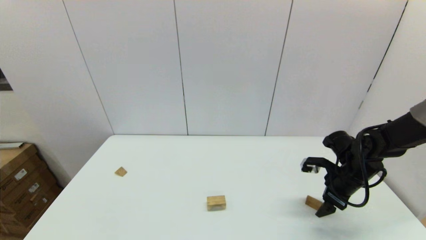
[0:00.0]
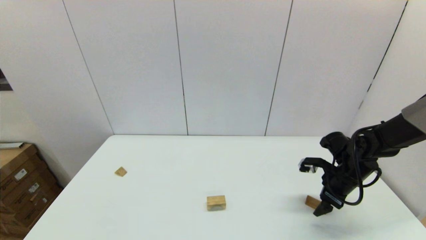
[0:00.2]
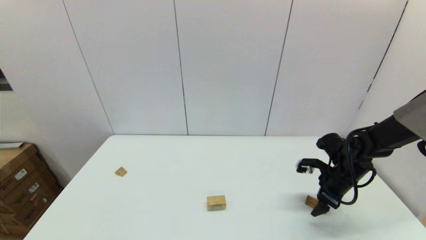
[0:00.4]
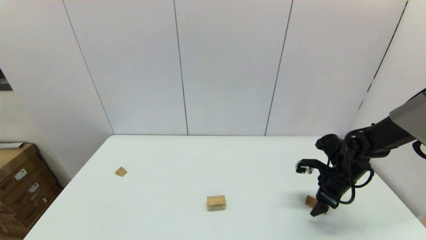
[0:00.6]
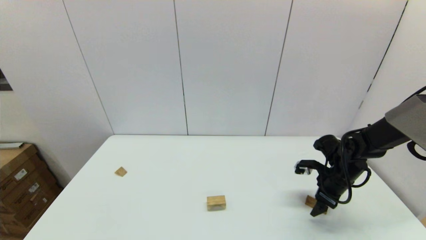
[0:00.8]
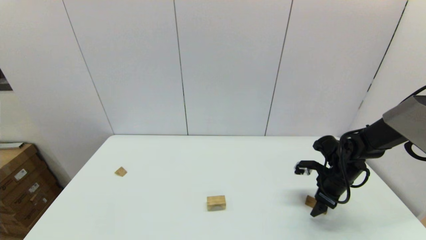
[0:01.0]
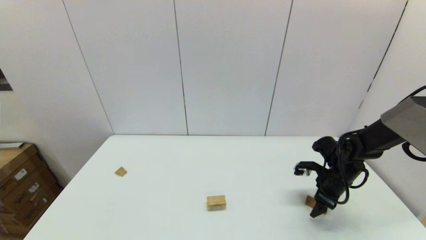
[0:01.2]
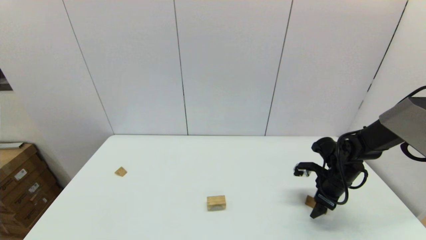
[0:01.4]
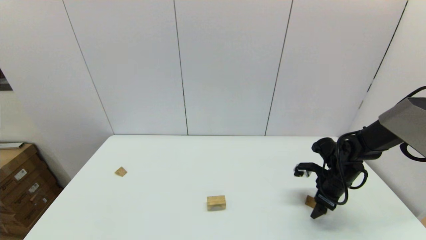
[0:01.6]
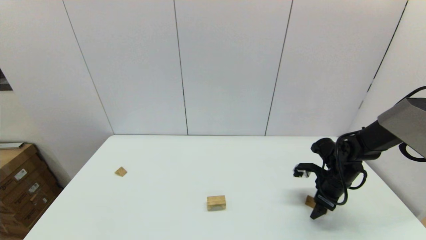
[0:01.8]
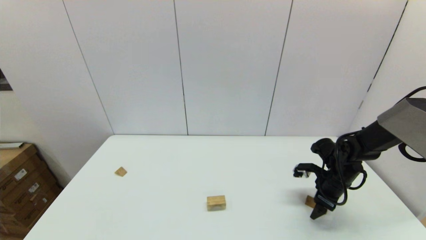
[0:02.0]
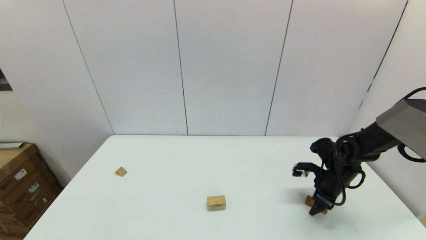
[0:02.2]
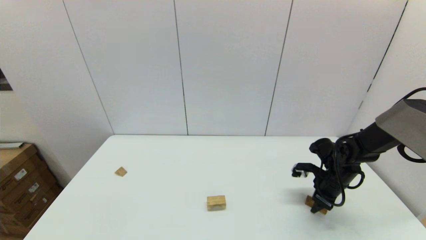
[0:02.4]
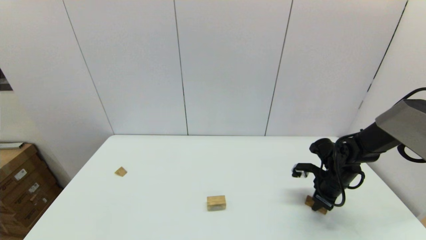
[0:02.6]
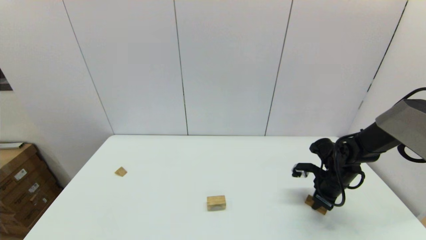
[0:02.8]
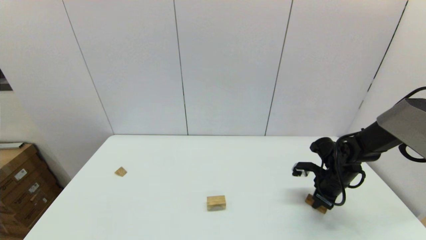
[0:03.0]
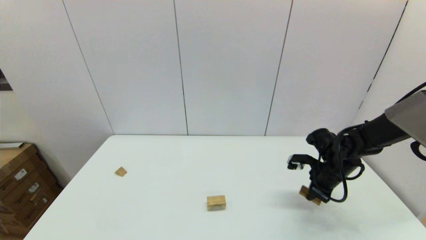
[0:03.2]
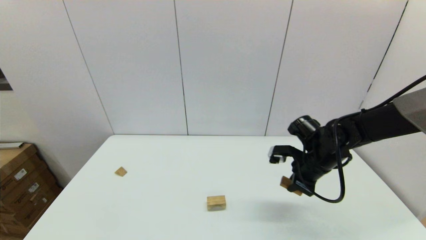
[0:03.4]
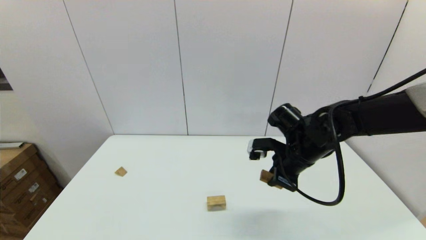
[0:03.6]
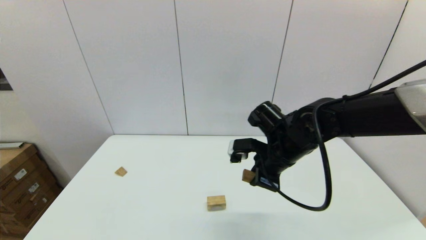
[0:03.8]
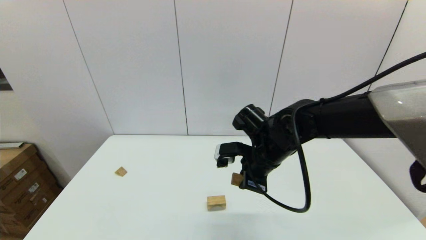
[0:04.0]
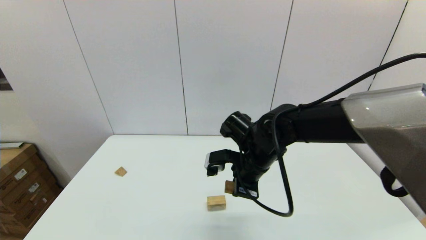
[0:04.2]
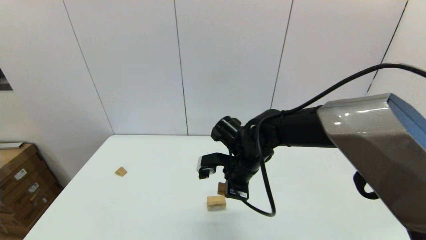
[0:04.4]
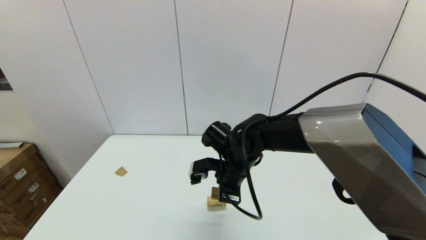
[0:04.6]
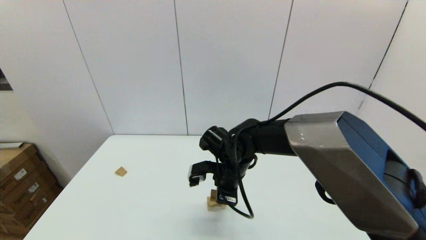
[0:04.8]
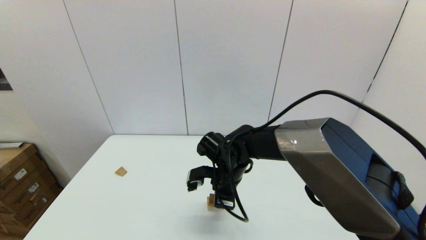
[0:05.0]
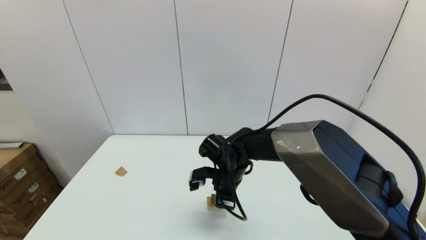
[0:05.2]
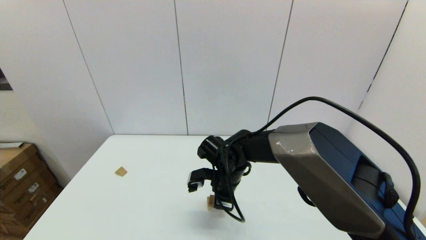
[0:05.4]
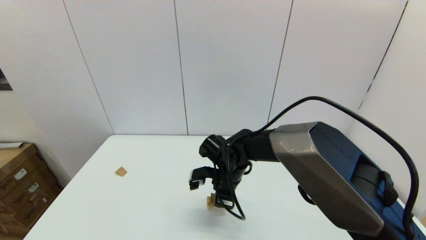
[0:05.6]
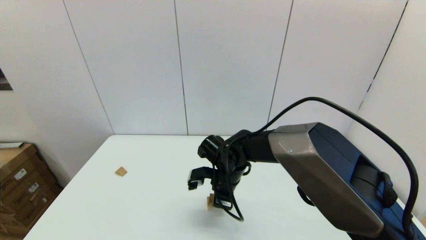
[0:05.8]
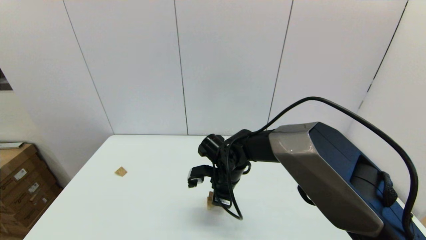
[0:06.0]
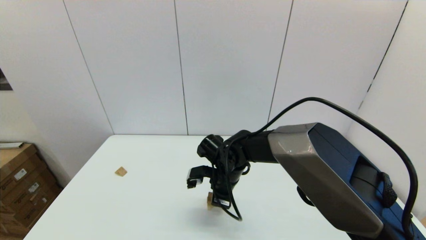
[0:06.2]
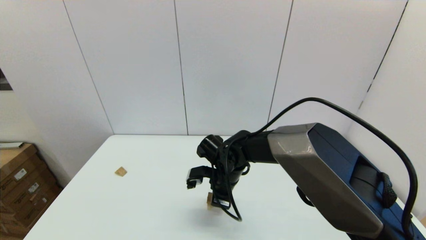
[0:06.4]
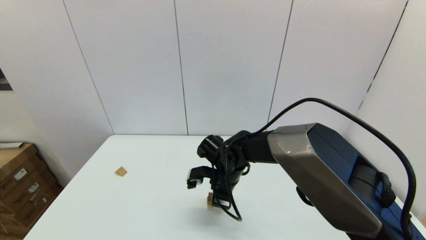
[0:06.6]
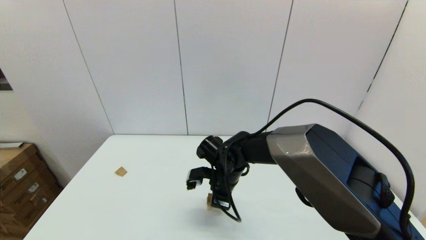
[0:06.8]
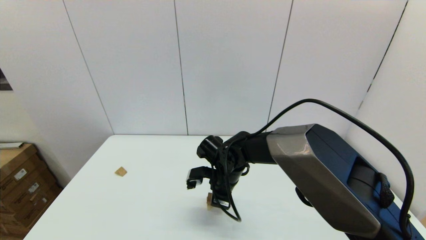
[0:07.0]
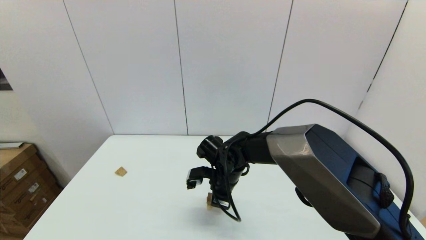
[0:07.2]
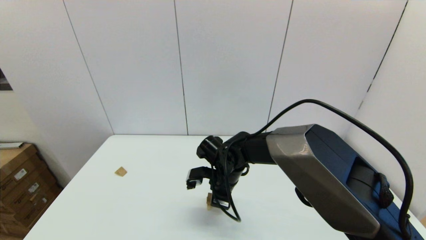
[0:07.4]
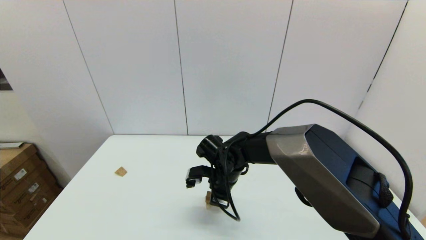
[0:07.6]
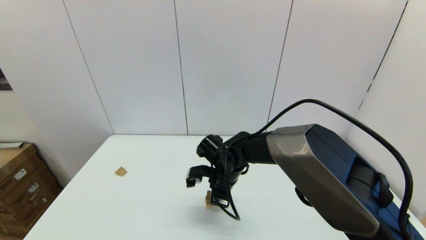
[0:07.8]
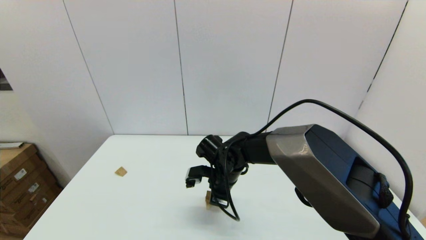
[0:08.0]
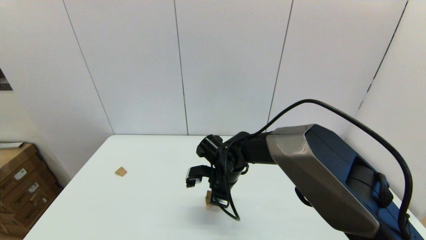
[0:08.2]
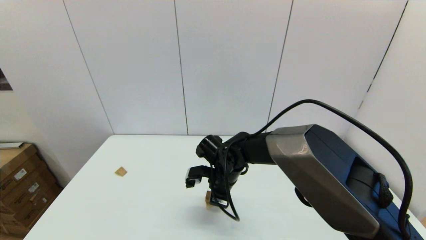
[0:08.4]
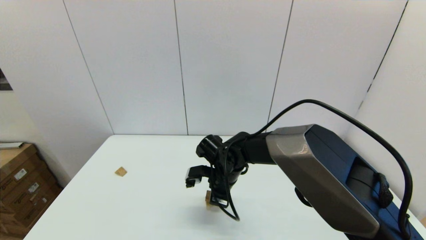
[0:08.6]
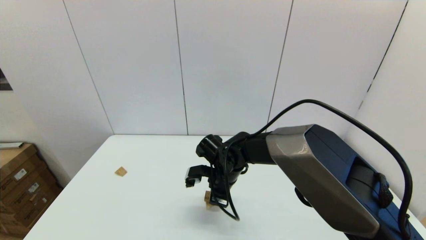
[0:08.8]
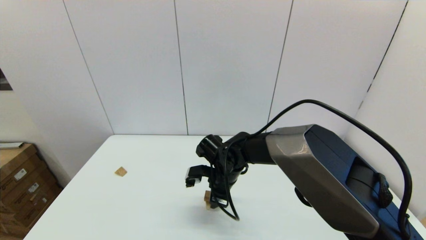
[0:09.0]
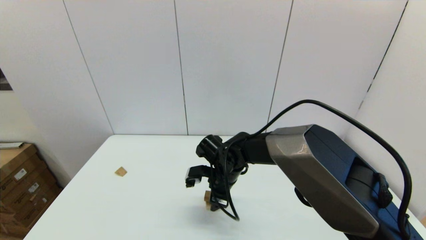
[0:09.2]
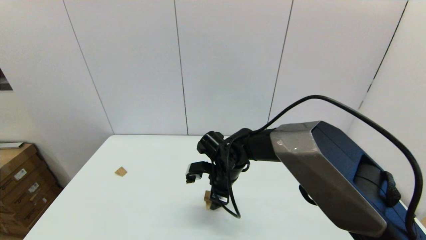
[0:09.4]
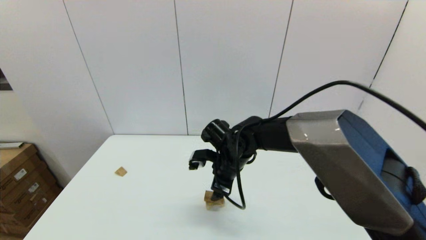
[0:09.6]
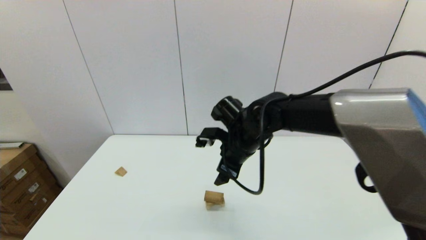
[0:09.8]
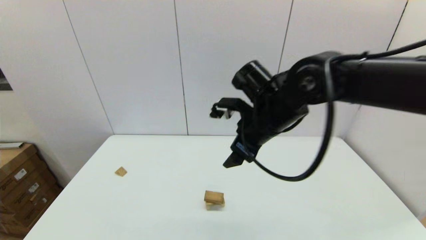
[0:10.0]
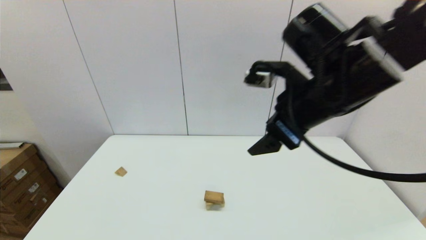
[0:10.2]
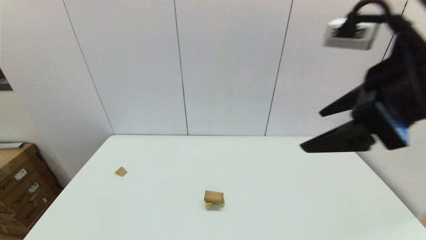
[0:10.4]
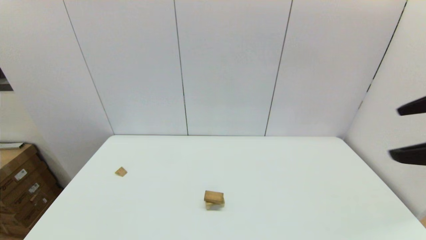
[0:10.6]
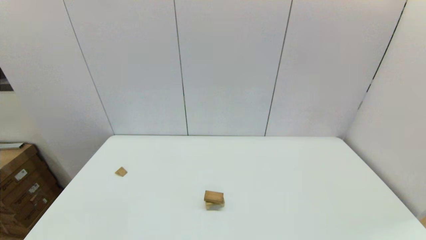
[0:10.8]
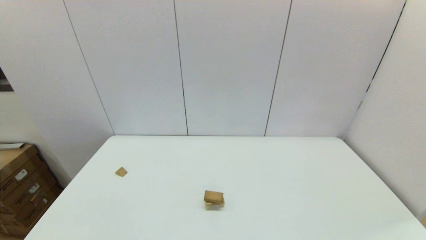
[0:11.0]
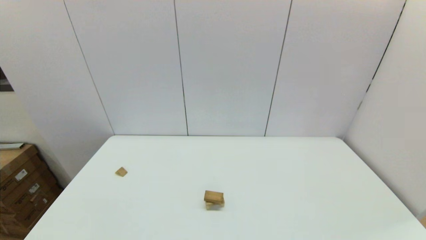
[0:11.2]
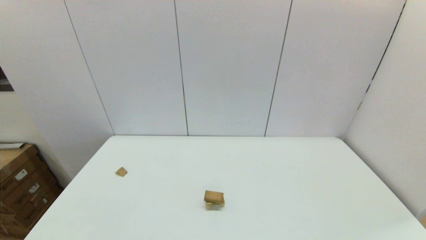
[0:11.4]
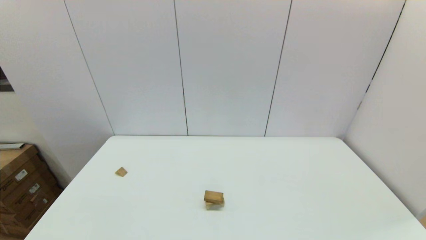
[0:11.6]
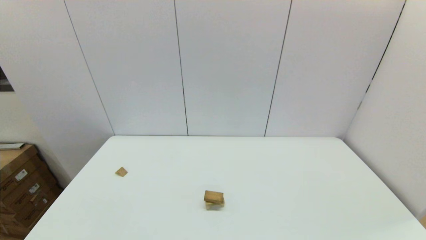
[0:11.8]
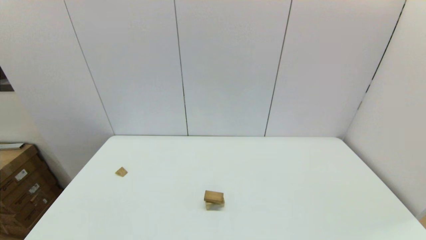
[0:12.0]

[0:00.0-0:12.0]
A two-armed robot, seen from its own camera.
Task of the whole recording: place the arched building blocks in the center of the table, set up the rectangular building blocks, and then set up the triangular building blocks.
Step, 0:00.0 to 0:02.8: Grasp the box-shaped block with the right gripper.
Step, 0:03.0 to 0:08.8: Place the box-shaped block onto the arch-shaped block with the right gripper.
0:00.0 to 0:01.6: The grippers move only a little.
0:01.6 to 0:03.0: The right gripper closes.
0:03.0 to 0:04.4: The right gripper heads to the left, covering some 25 cm.
0:04.4 to 0:06.0: The right gripper goes roughly 5 cm downward.
0:06.0 to 0:07.6: Both grippers stay put.
0:07.6 to 0:09.0: The right gripper opens.
0:09.0 to 0:10.4: The right gripper goes about 40 cm upward, to the right and backward, and opens up.
0:10.4 to 0:12.0: The right gripper is displaced backward, downward and to the right by approximately 35 cm.

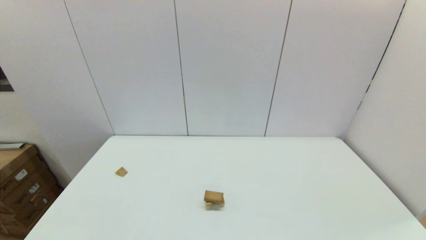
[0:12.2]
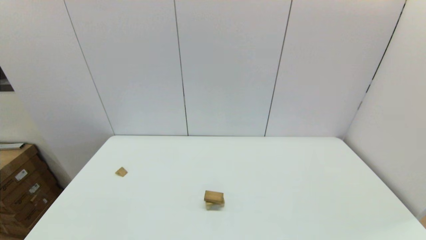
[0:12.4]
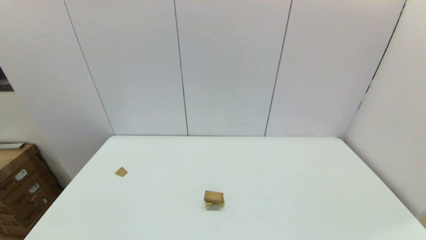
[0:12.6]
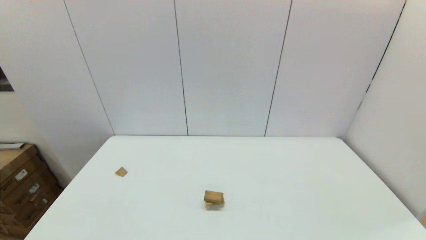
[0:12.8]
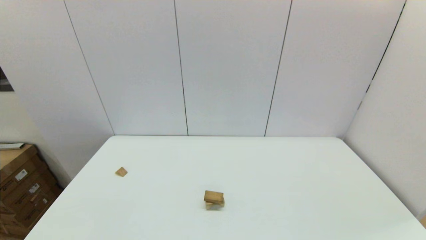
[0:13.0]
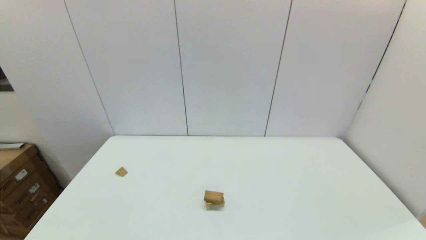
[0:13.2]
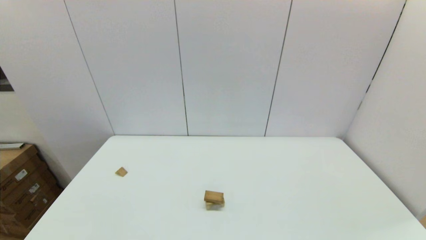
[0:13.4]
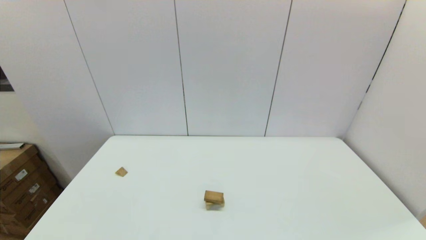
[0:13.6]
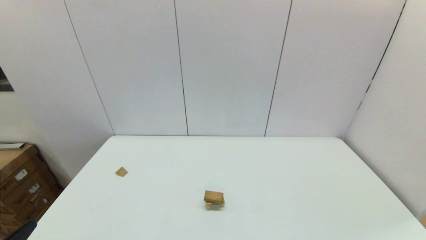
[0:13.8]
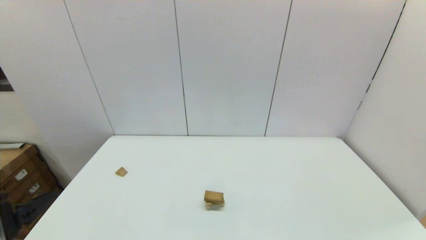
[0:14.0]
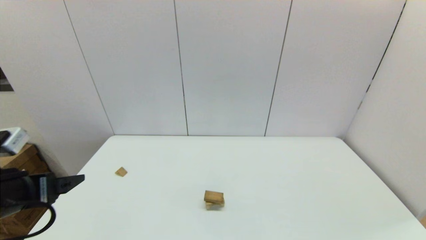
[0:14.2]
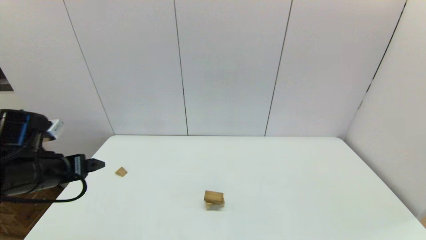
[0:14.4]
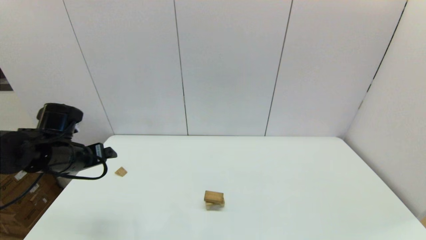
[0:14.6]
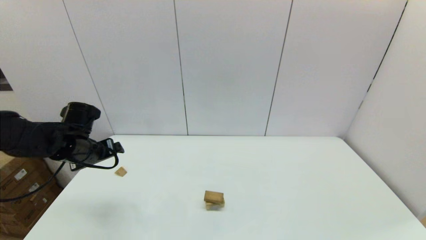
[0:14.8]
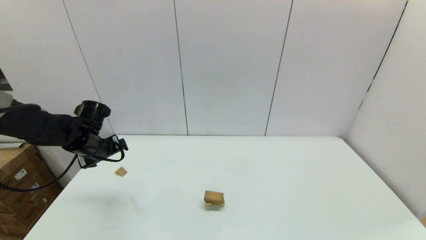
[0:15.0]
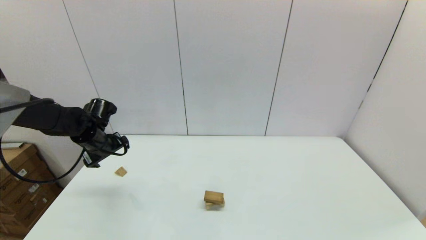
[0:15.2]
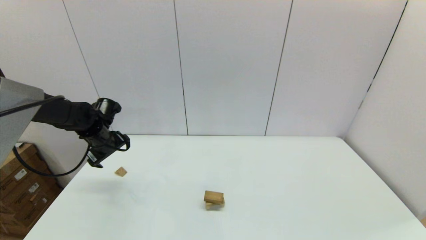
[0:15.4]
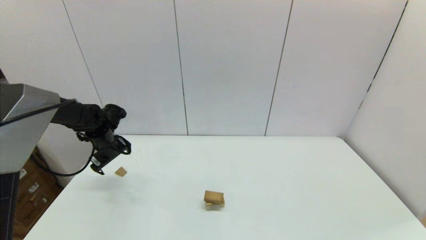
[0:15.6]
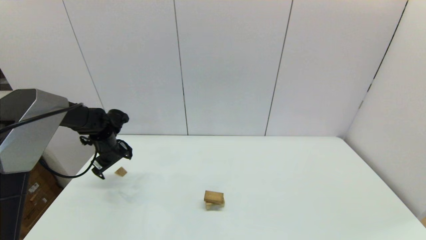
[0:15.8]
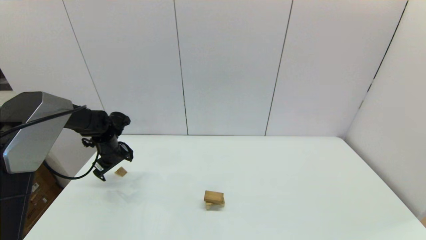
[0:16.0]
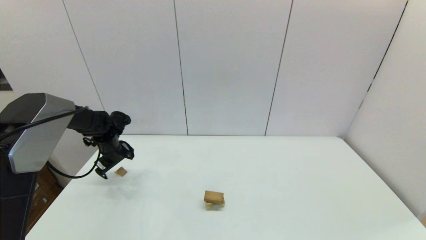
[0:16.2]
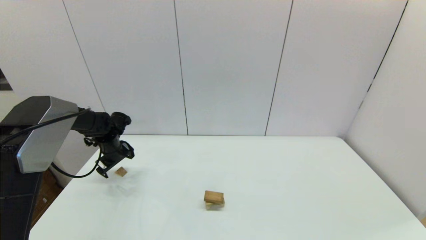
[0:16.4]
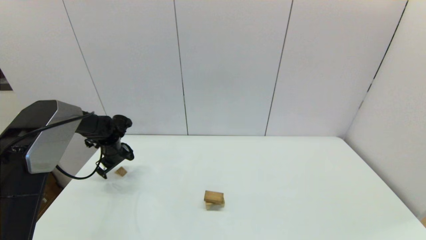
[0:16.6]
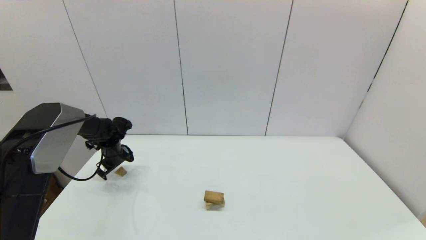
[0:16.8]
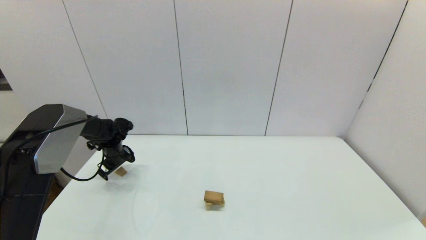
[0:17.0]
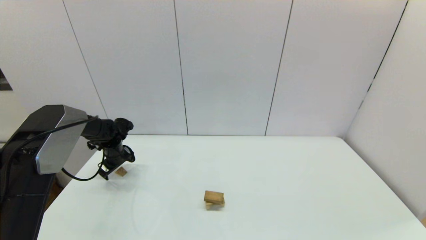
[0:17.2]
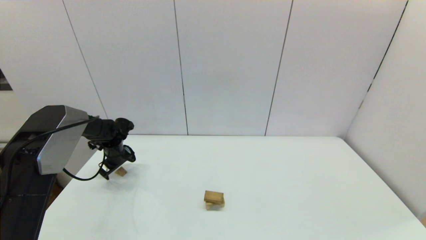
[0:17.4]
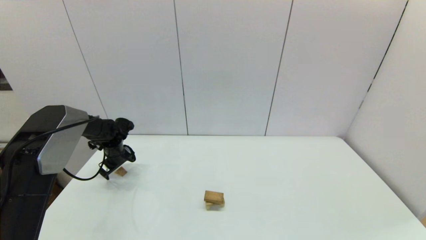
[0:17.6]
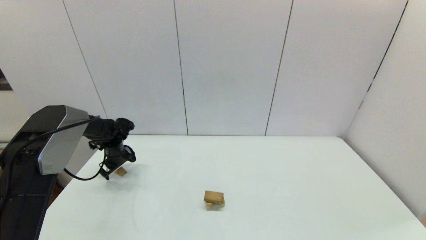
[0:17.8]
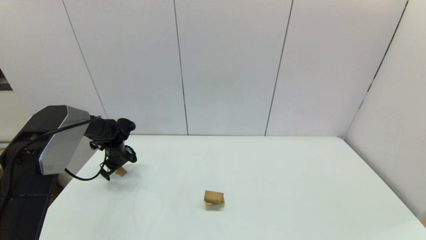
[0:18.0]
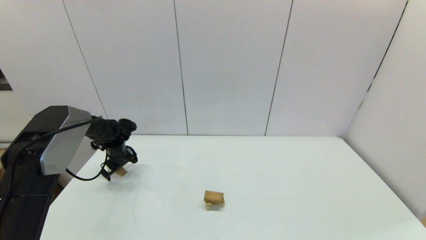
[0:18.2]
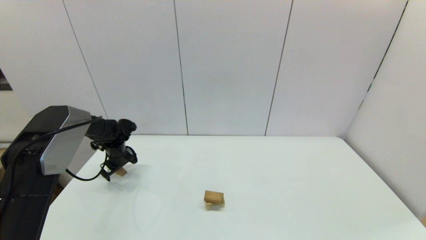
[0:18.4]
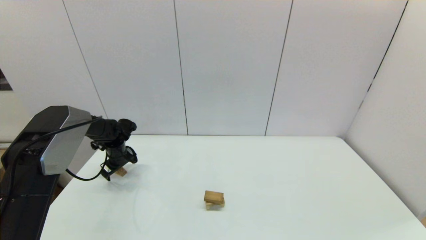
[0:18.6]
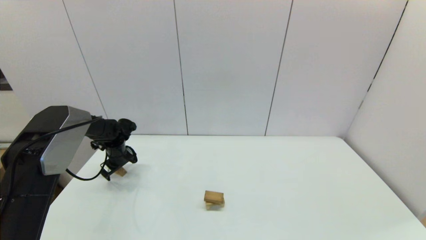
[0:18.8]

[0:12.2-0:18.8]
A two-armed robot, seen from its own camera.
Task of the whole recording: place the arched building blocks in the center of the table, set up the rectangular building blocks, and then set up the triangular building blocks.
0:13.8 to 0:15.4: The left gripper shifts about 40 cm forward.
0:15.4 to 0:17.2: The left gripper heads downward and forward, covering roughly 10 cm.
0:17.2 to 0:18.8: Both grippers stay put.
